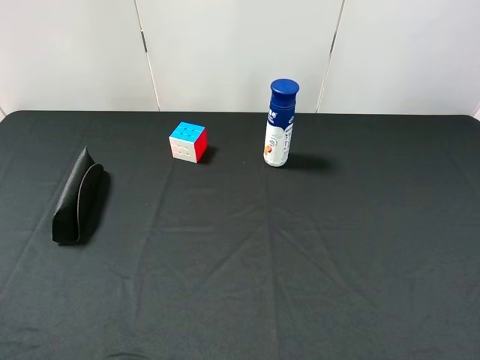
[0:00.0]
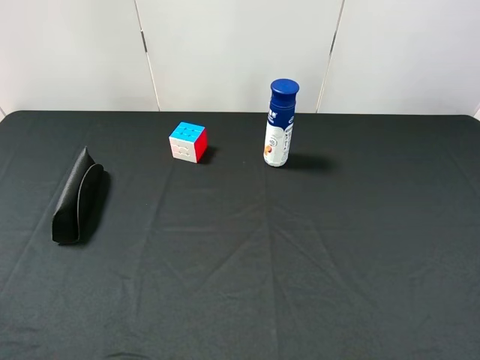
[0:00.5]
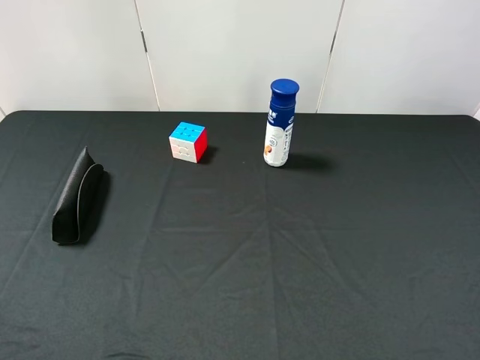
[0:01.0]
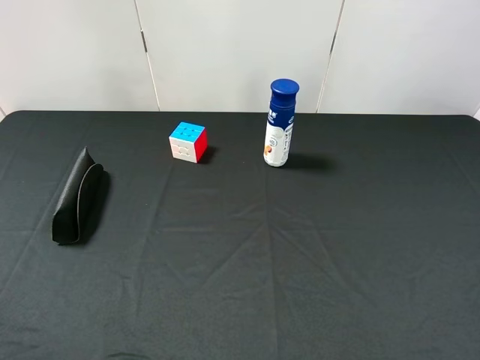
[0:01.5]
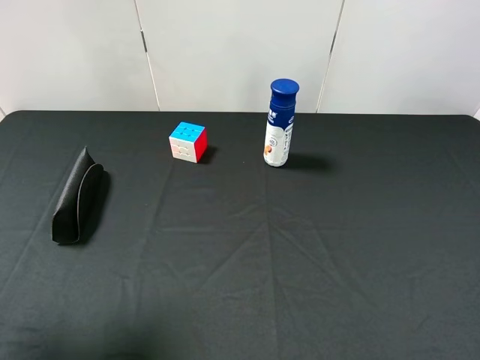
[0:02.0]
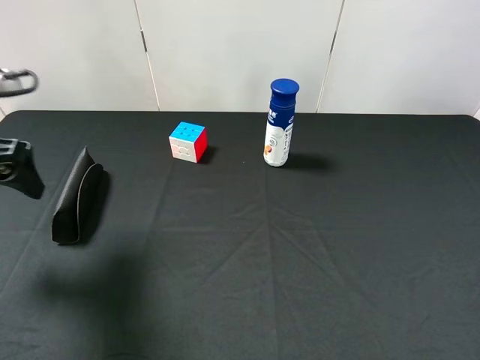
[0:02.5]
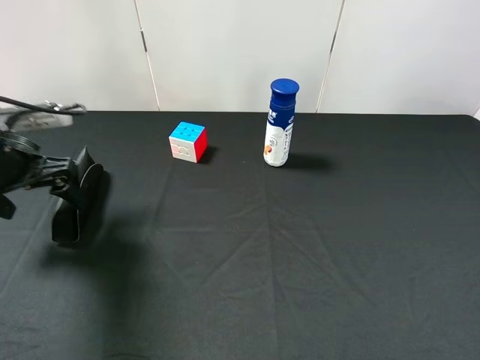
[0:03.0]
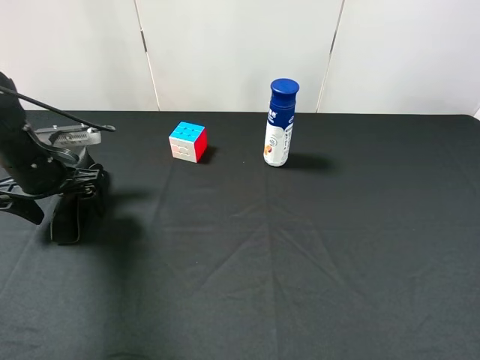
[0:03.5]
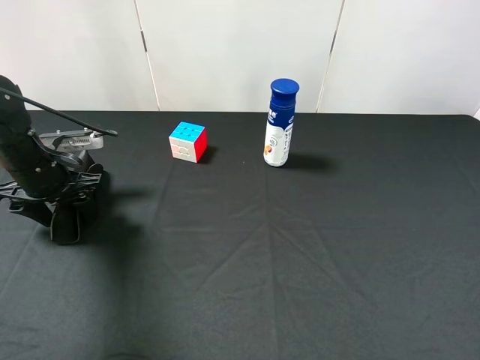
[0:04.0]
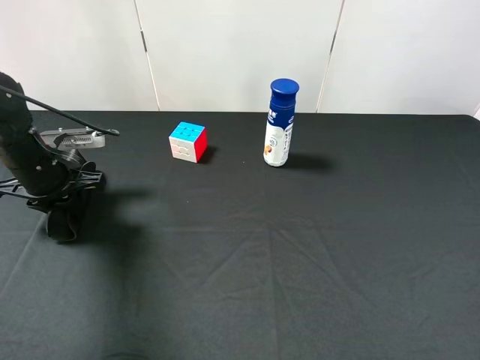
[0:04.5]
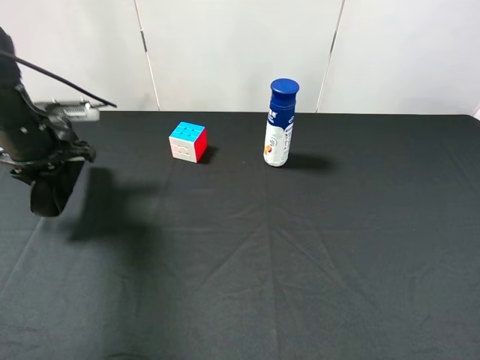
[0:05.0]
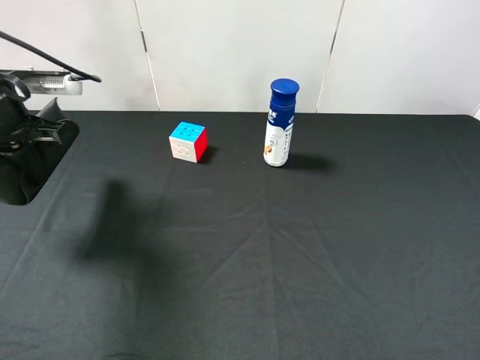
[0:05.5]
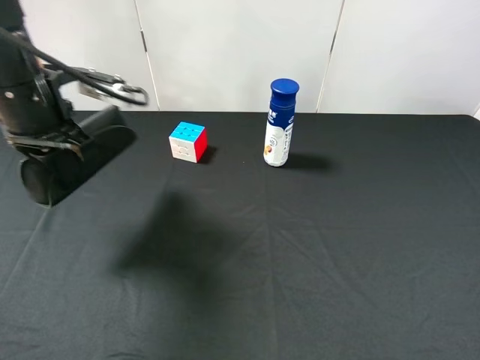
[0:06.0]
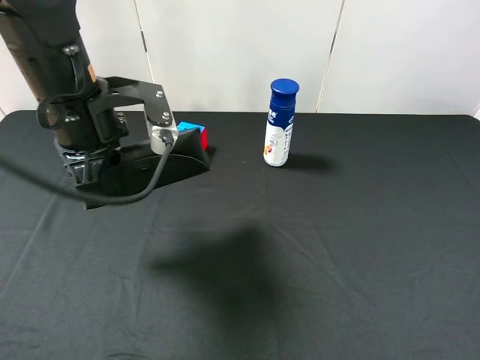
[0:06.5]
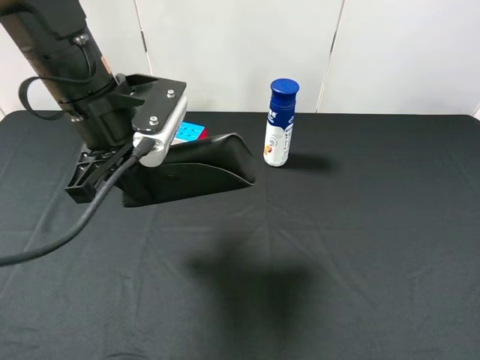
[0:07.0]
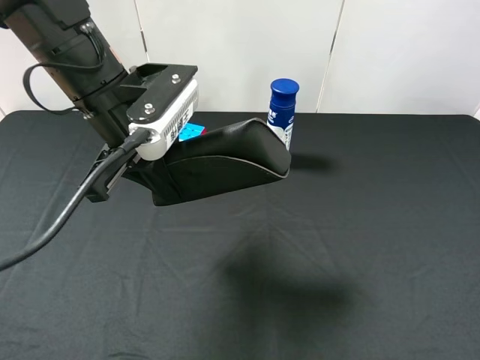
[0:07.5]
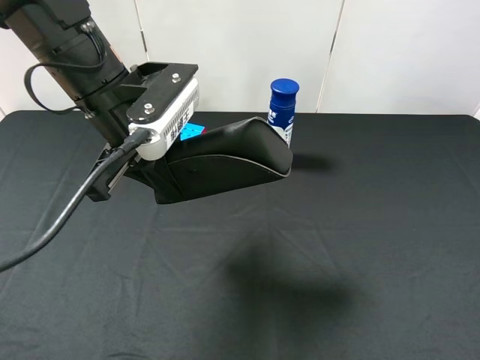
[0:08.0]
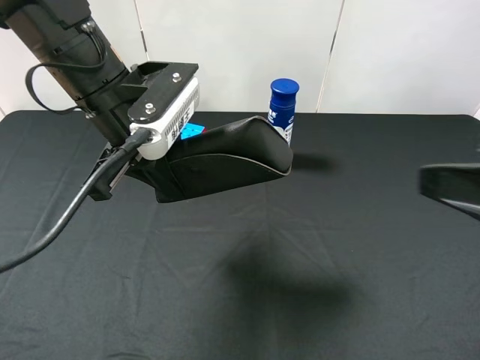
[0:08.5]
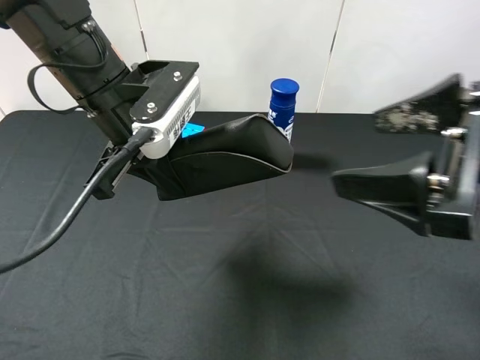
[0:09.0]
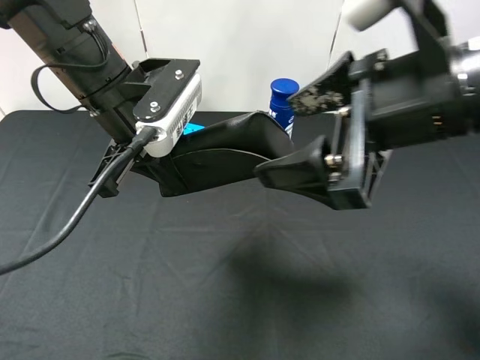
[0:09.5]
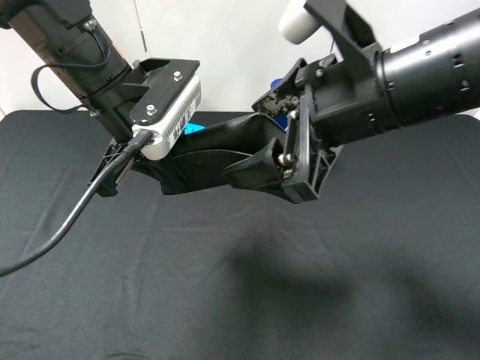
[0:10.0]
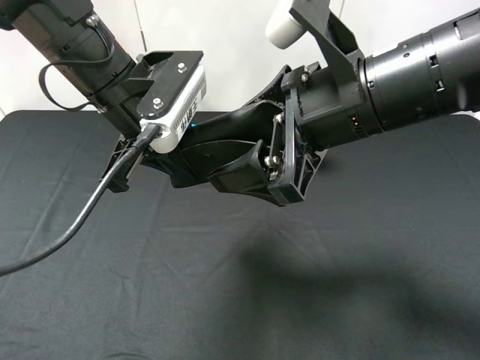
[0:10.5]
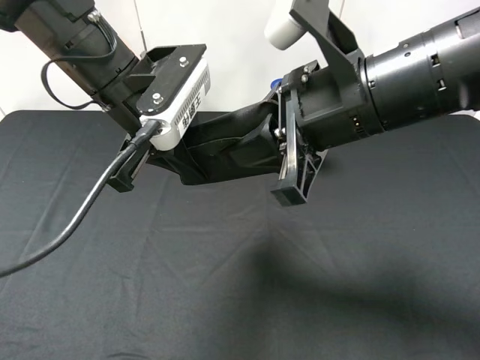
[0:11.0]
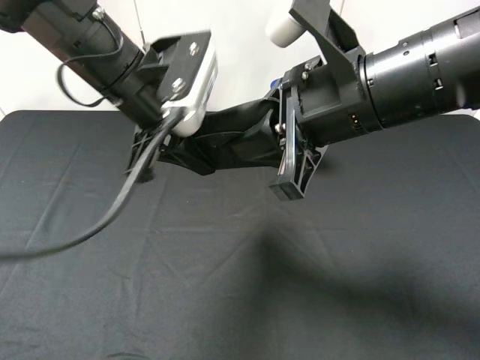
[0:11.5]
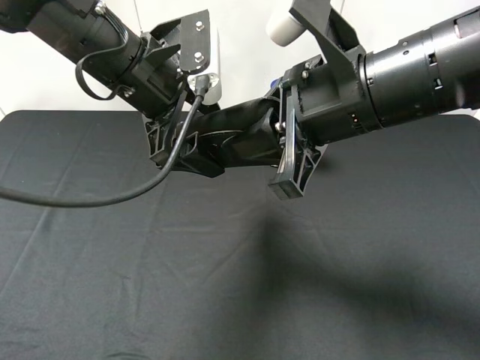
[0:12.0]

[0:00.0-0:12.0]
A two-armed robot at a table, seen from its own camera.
Task of the whole recording: use the left gripper to pick up the item and transfer it from the left gripper to the right gripper.
0:00.0 to 0:02.0: The left gripper moves forward, approximately 15 cm.
0:02.0 to 0:04.0: The left gripper moves downward and forward, approximately 25 cm, and closes.
0:04.0 to 0:06.0: The left gripper moves upward and to the right, some 15 cm, and closes.
0:06.0 to 0:08.0: The left gripper heads to the right, covering roughly 10 cm.
0:08.0 to 0:10.0: The right gripper is displaced forward and to the left by about 25 cm.
0:10.0 to 0:12.0: The right gripper closes up, while the left gripper opens.

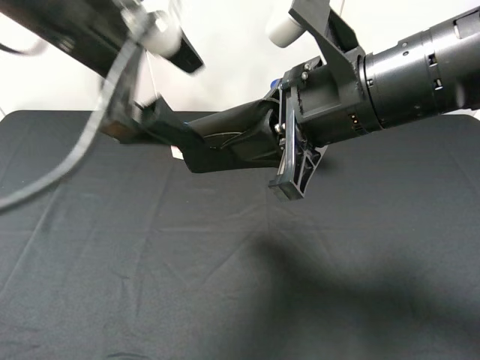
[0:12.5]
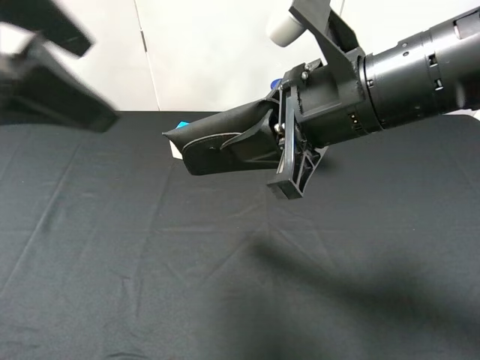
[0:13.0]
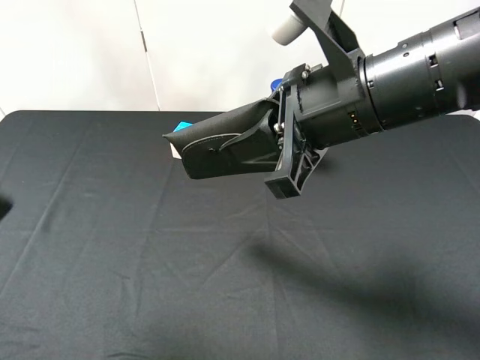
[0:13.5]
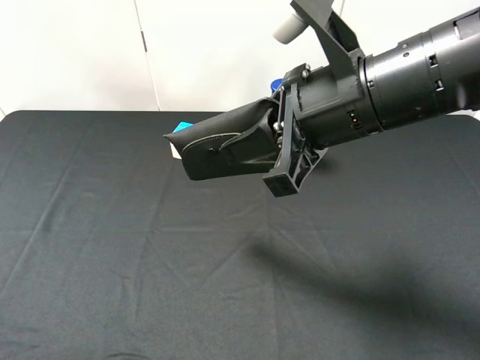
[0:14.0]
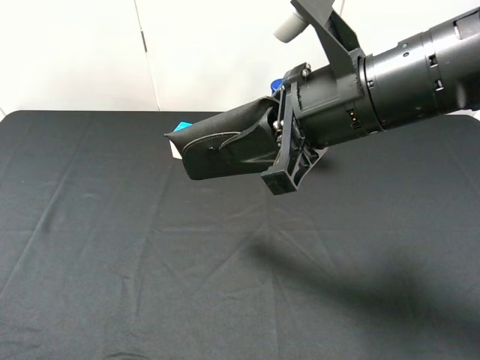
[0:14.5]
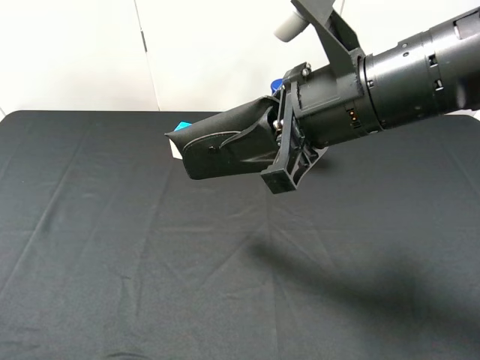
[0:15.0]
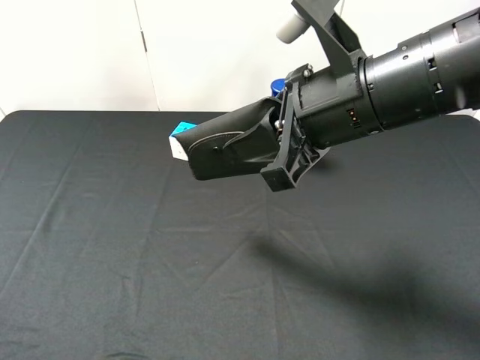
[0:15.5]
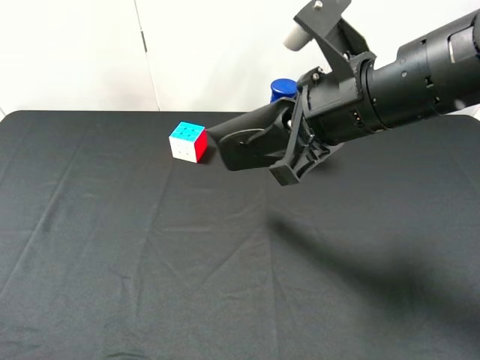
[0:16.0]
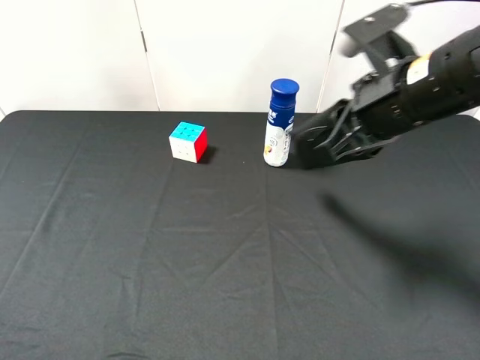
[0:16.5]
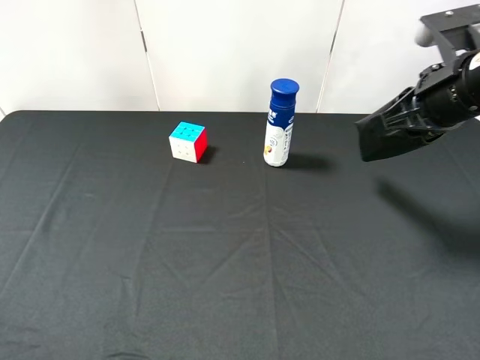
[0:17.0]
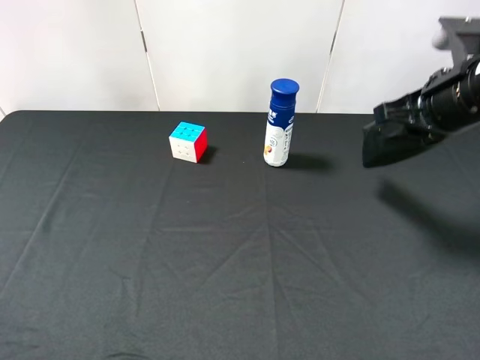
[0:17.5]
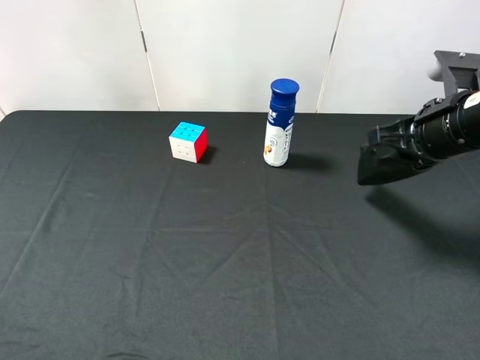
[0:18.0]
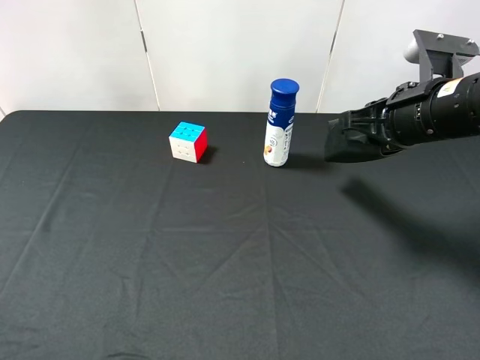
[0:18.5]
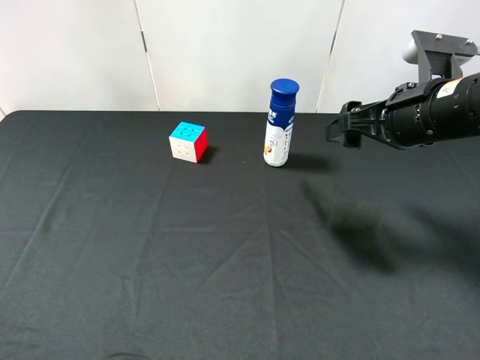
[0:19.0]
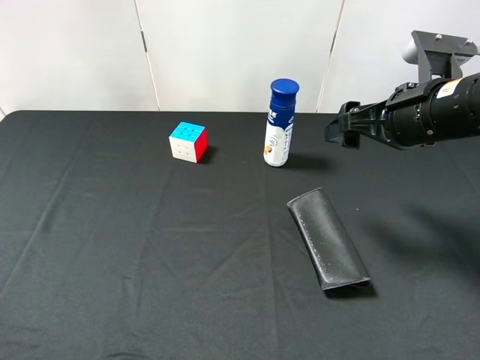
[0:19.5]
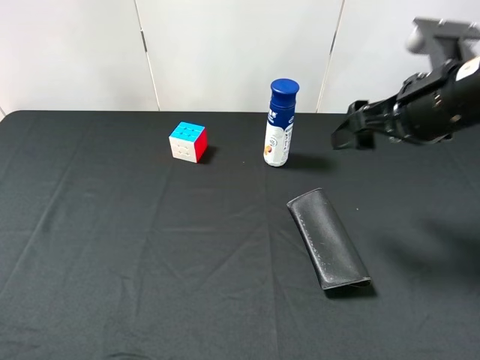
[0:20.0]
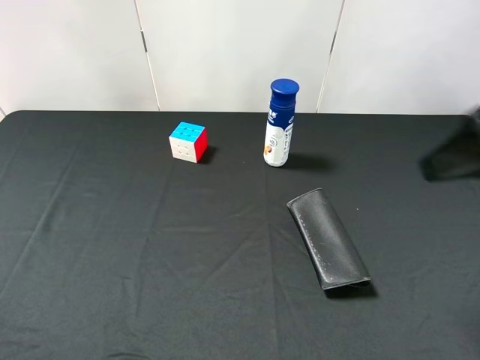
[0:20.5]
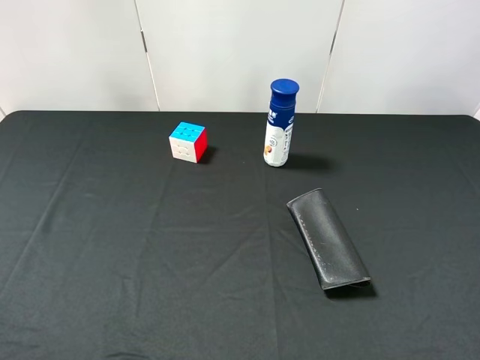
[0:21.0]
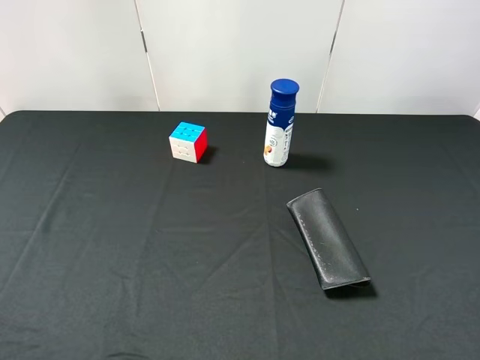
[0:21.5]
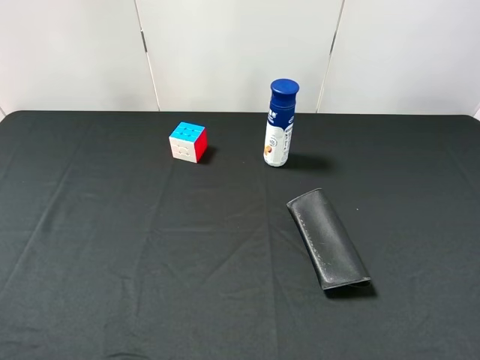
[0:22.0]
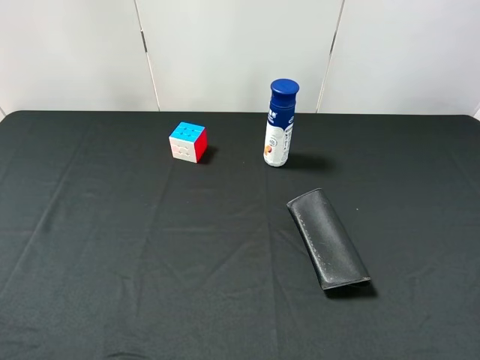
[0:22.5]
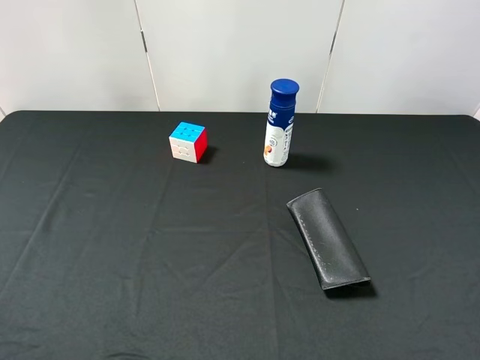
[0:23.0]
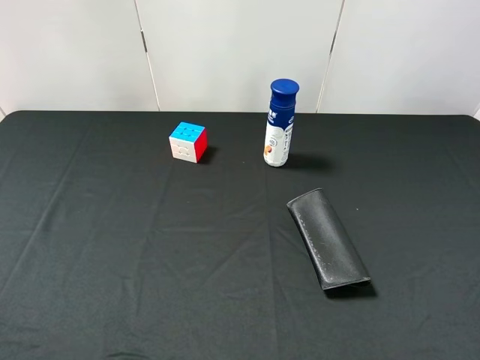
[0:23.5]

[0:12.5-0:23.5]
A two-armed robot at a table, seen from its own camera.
Task of the whole recording: use the left gripper to pick up the item and transfer it from the left gripper to the right gripper.
0:12.5 to 0:14.5: The left gripper moves backward and to the left, approximately 30 cm.
0:16.0 to 0:18.0: The right gripper travels to the right by about 15 cm.
0:18.0 to 0:20.0: The right gripper ends up about 5 cm from where it was, and opens its fingers.
0:20.0 to 0:21.5: The right gripper is displaced backward by about 25 cm.
